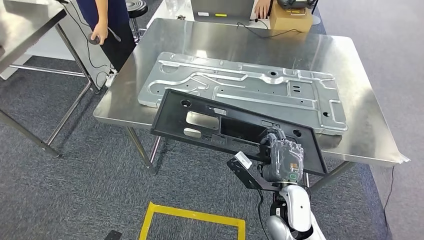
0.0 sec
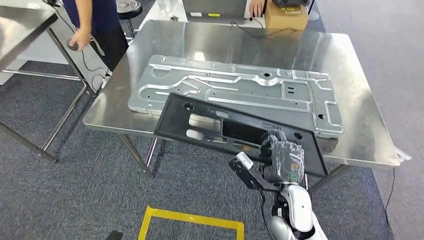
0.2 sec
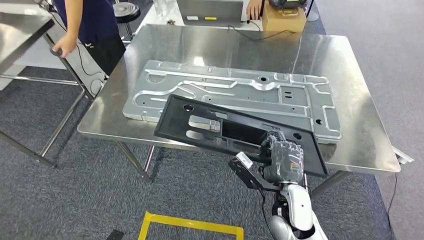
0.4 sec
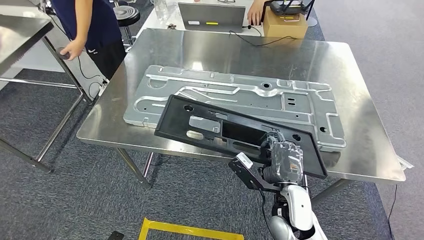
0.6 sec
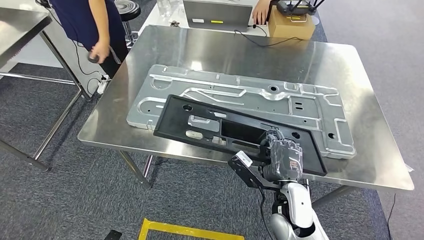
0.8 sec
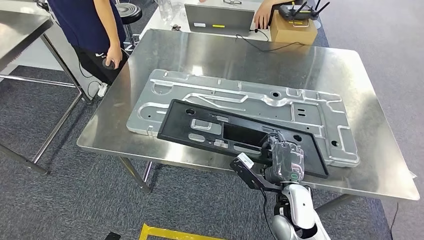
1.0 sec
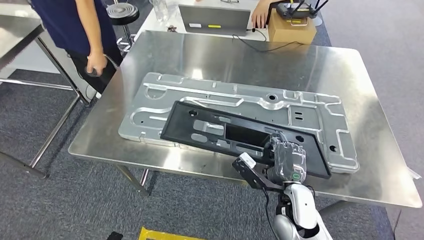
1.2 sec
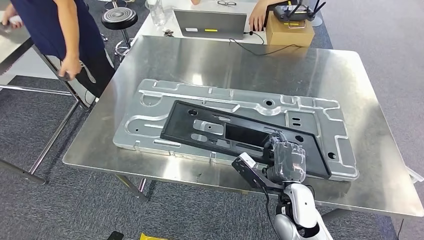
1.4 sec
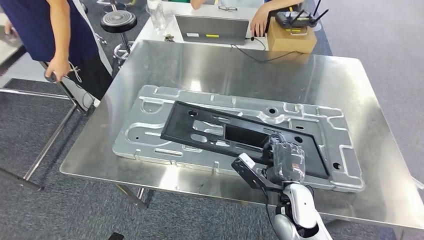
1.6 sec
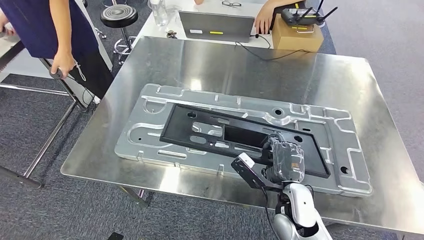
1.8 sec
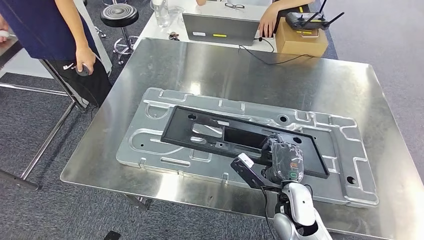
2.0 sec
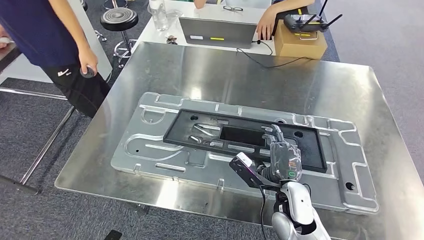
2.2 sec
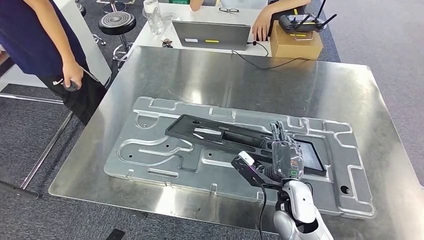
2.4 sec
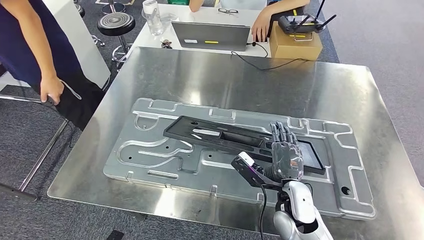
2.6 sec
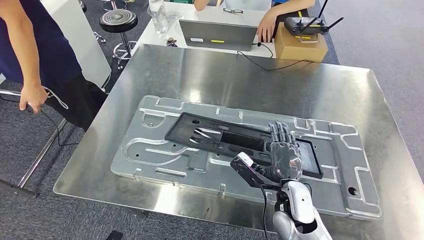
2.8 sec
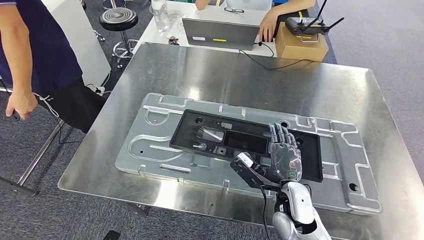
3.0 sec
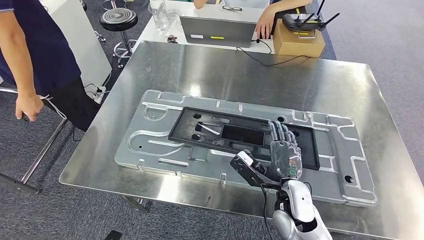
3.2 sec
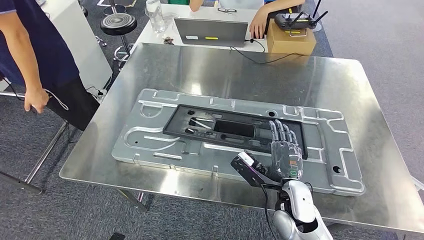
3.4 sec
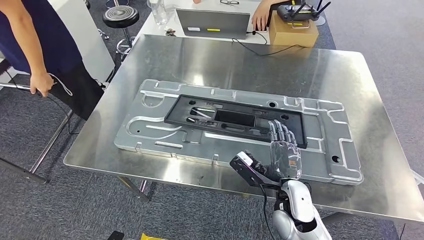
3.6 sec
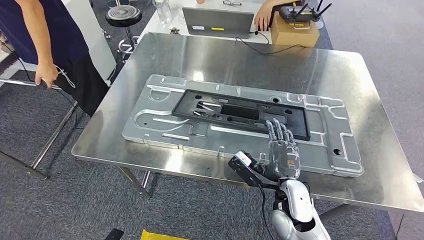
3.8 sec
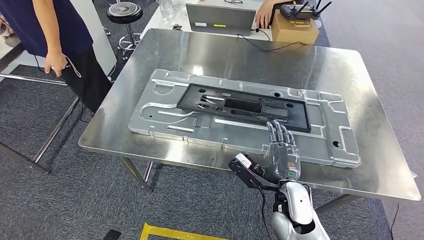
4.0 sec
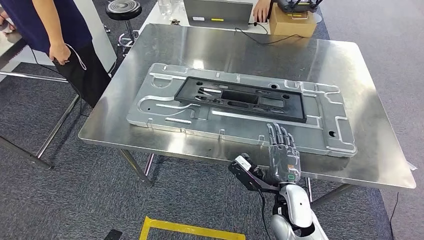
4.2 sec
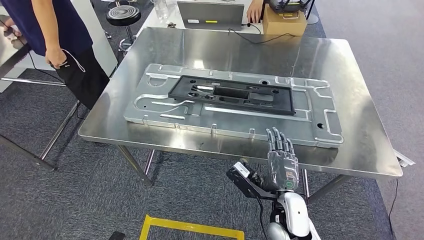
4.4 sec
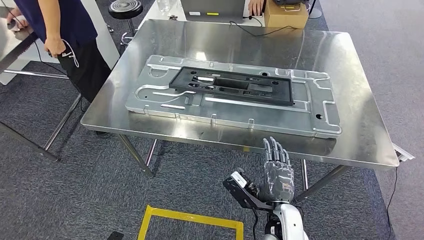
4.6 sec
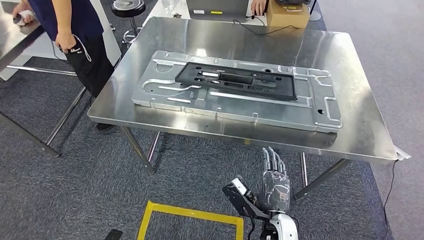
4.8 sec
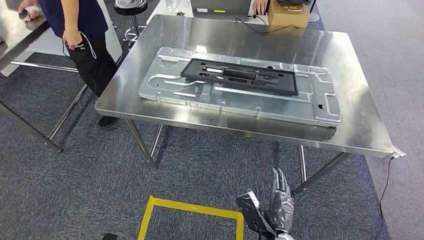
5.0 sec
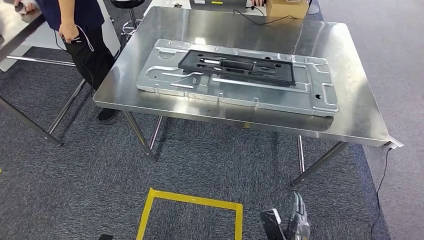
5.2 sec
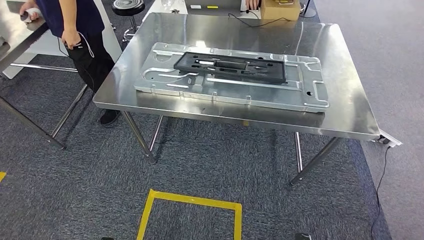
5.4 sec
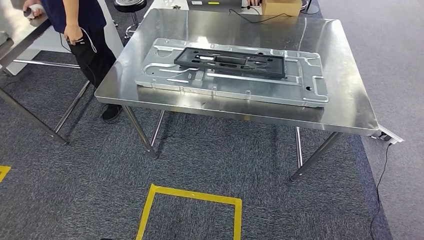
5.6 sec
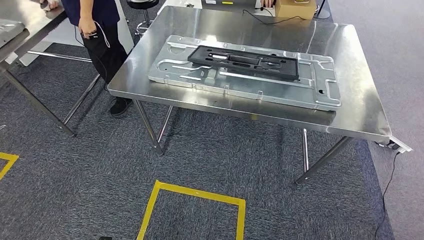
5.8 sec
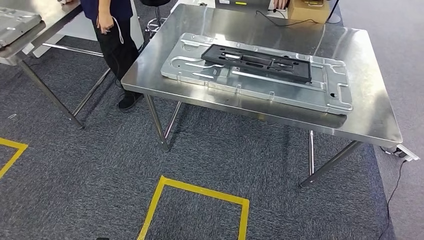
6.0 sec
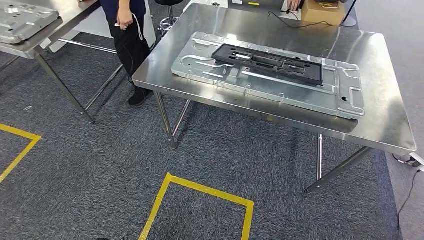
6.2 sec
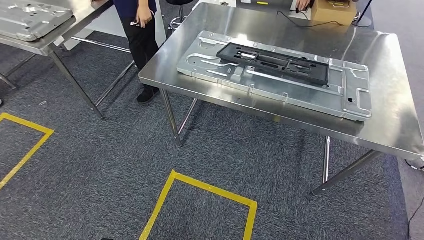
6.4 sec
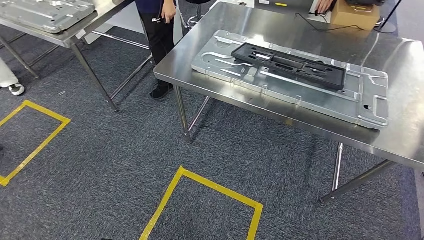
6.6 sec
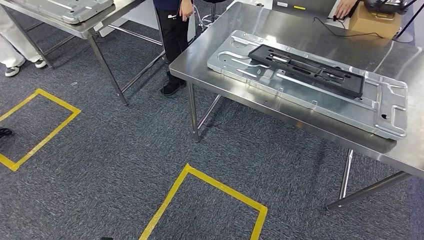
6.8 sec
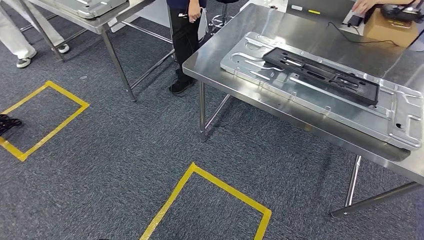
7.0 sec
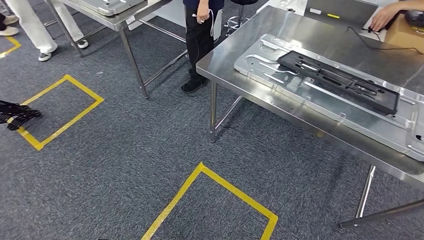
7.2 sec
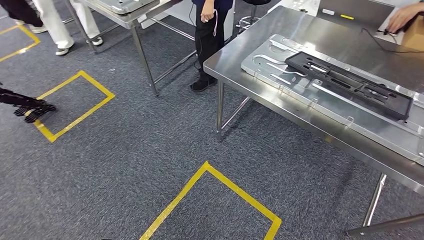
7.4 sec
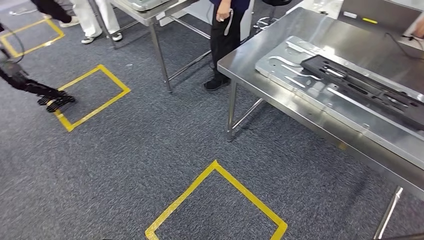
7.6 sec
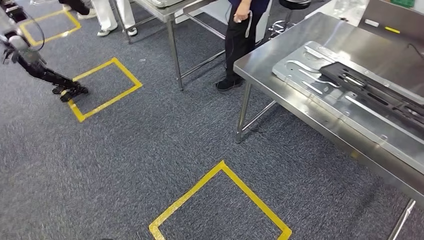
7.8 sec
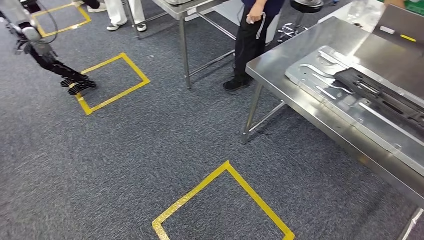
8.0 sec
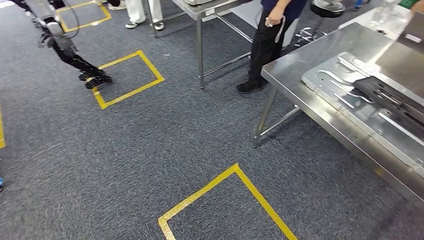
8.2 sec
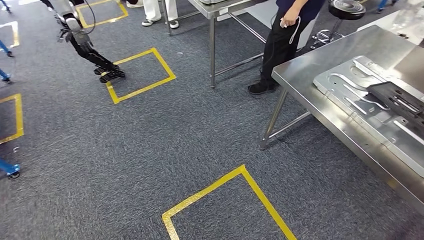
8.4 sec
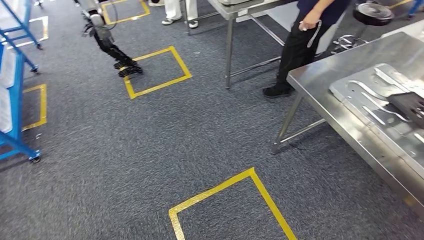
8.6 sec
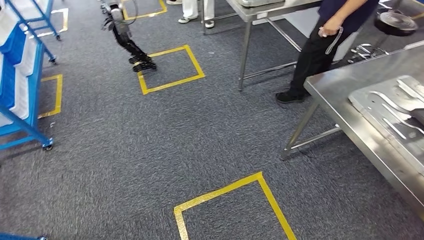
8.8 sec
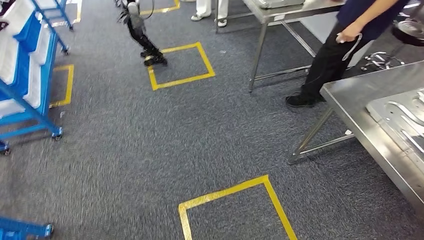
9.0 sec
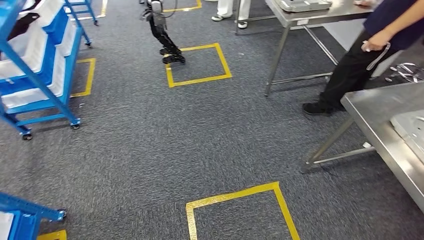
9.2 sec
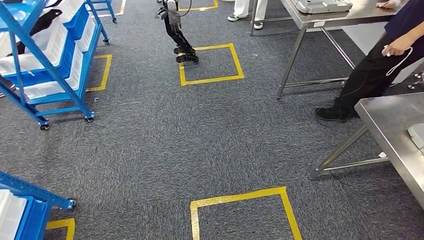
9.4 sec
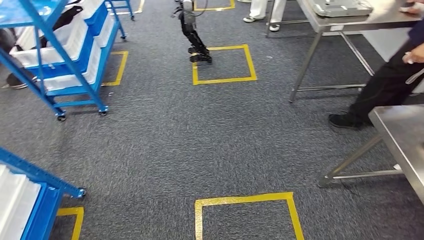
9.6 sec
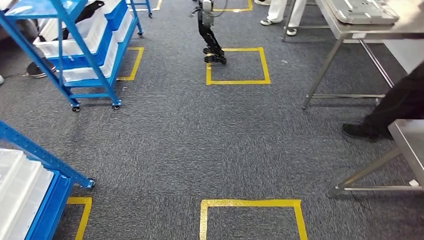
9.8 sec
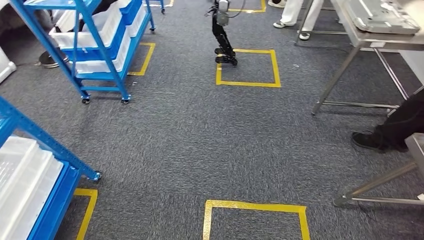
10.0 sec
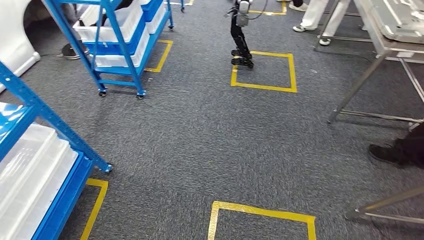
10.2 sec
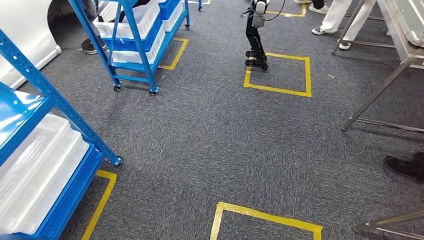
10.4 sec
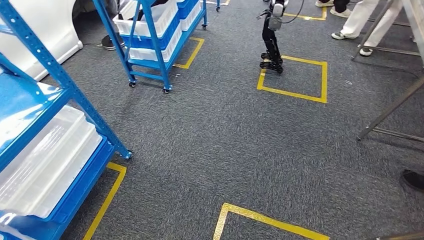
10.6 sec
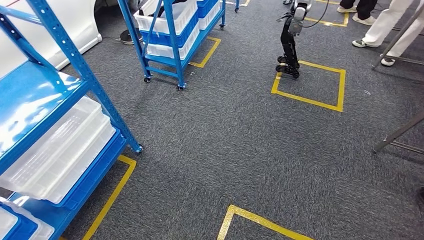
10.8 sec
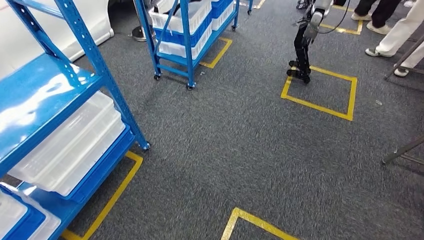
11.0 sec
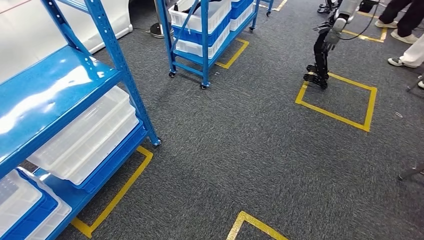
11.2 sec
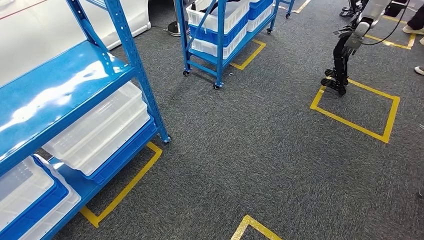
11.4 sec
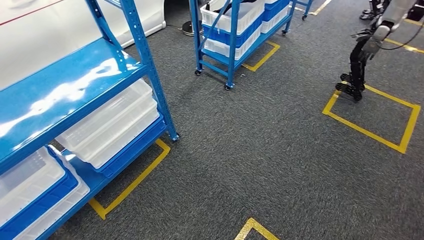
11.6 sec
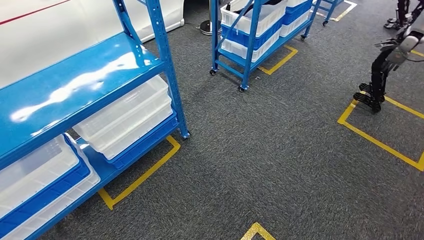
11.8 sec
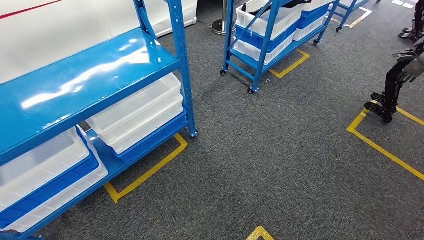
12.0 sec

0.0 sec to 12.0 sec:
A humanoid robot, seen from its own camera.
Step, 1.0 sec to 5.4 sec: Insert the large material into the corresponding slot on the workbench.

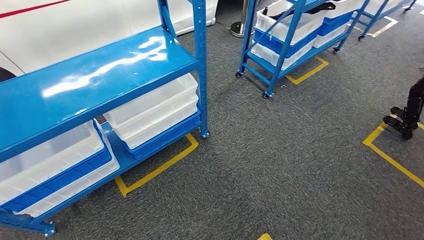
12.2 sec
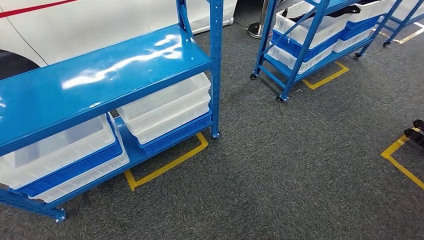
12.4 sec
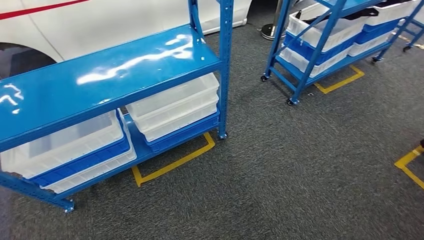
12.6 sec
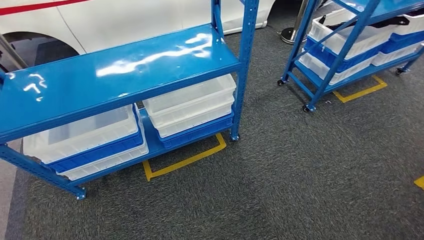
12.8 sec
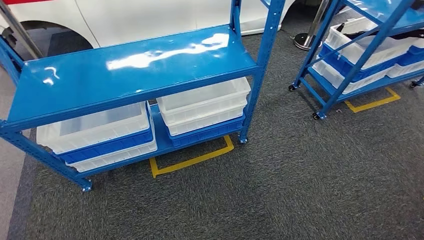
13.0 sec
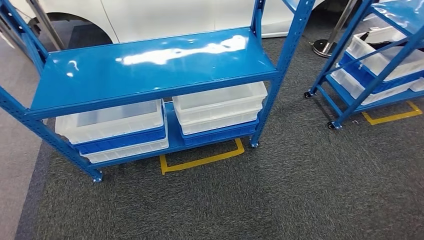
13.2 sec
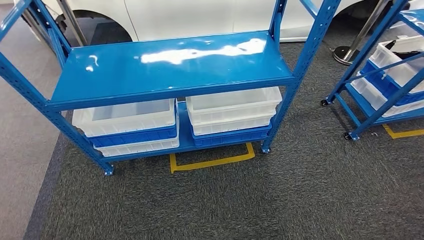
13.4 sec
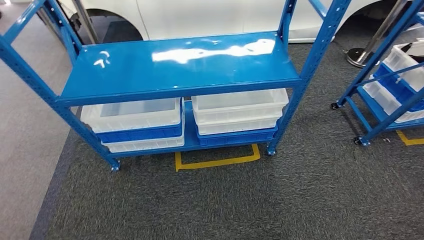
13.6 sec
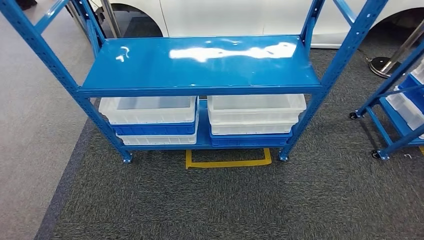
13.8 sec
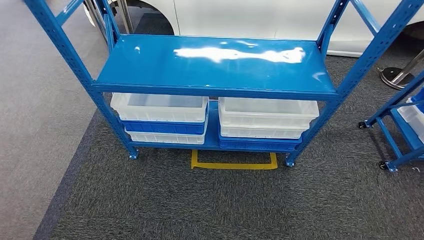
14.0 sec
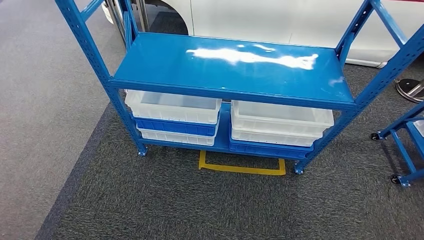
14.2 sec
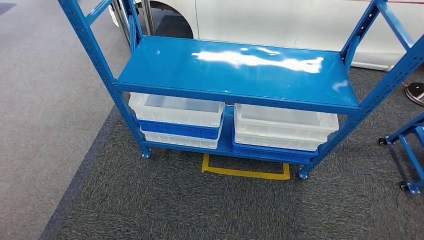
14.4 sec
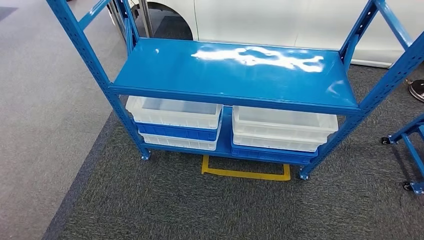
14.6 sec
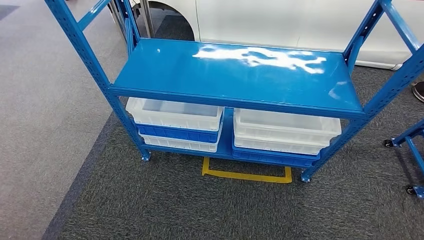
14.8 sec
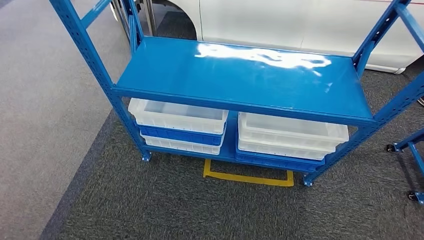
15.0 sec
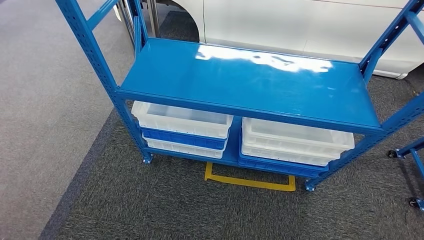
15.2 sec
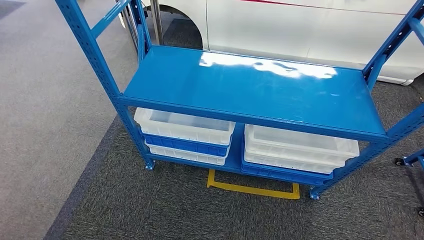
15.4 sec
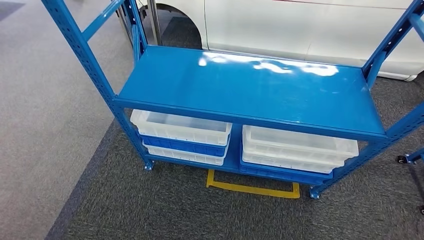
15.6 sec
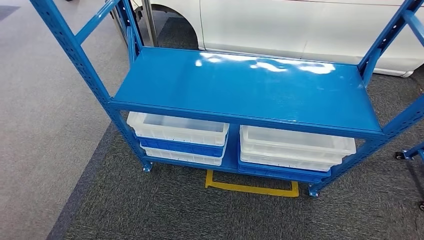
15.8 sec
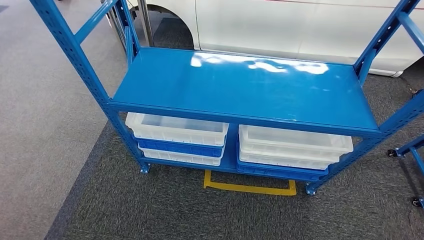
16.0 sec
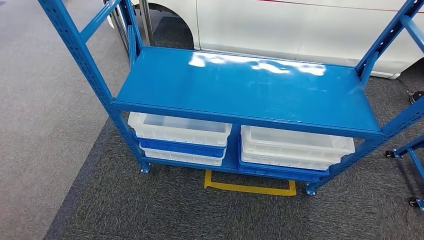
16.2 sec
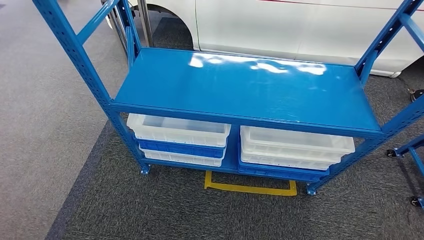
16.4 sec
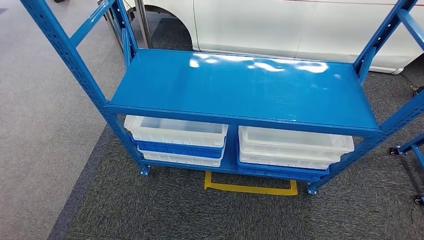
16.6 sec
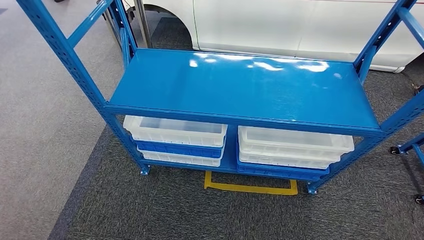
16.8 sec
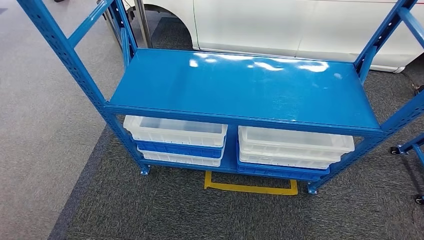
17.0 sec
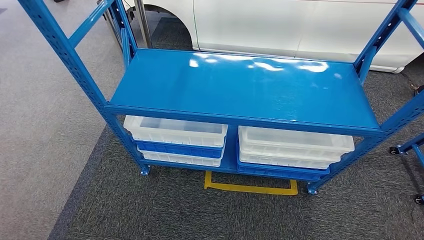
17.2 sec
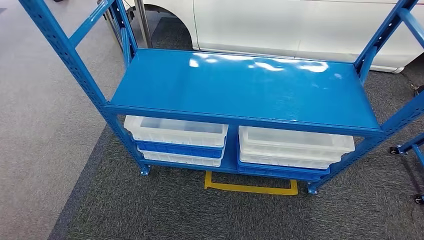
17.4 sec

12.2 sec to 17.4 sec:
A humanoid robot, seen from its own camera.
Step, 12.2 sec to 17.2 sec: Move to the initial position of the shelf.
